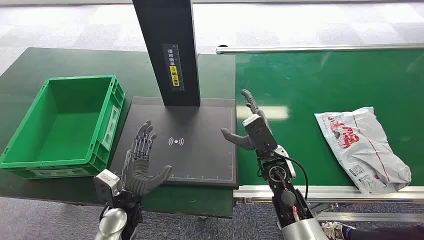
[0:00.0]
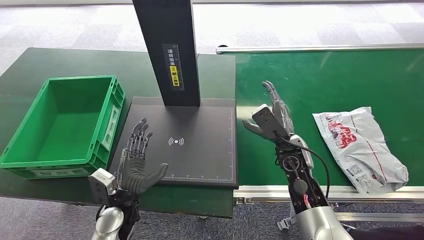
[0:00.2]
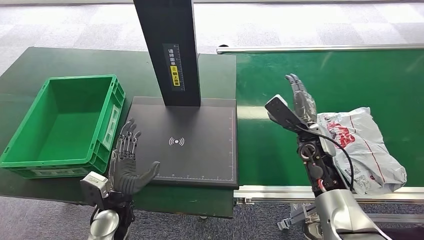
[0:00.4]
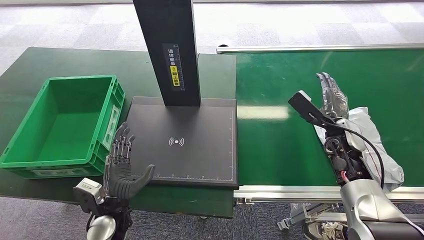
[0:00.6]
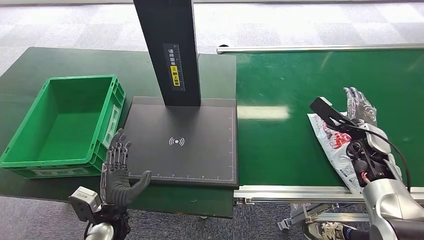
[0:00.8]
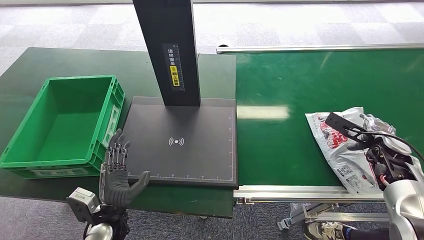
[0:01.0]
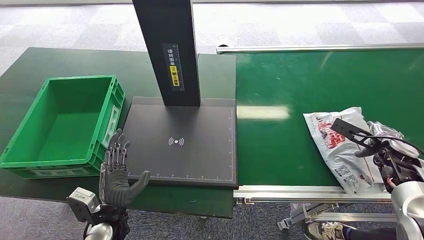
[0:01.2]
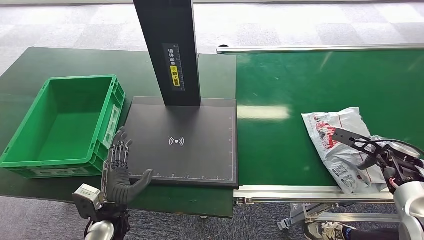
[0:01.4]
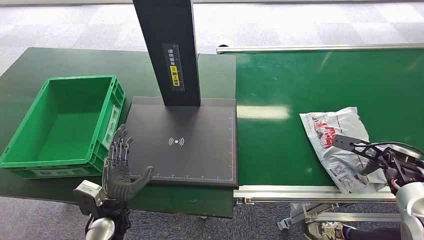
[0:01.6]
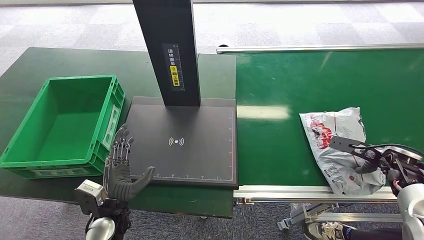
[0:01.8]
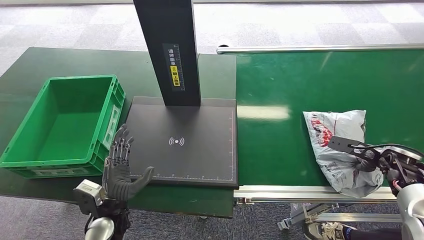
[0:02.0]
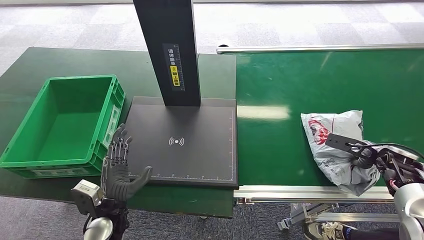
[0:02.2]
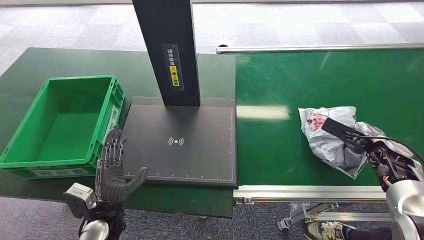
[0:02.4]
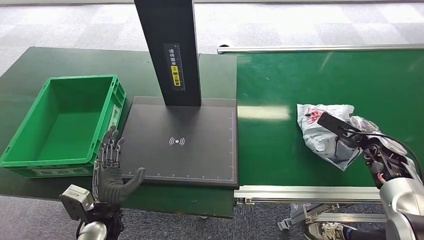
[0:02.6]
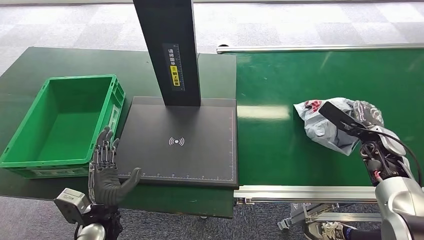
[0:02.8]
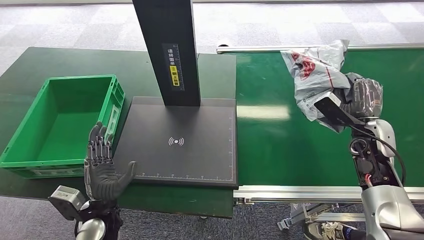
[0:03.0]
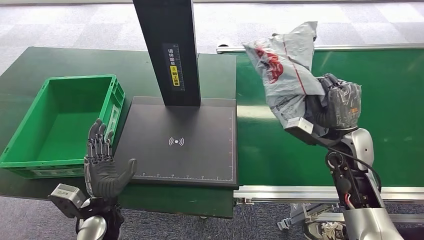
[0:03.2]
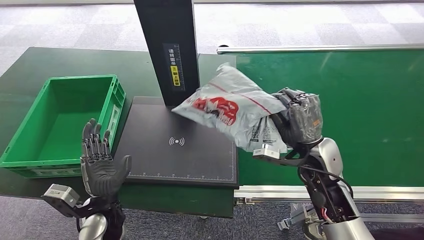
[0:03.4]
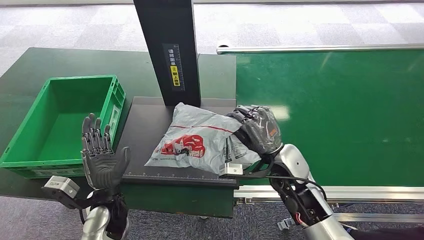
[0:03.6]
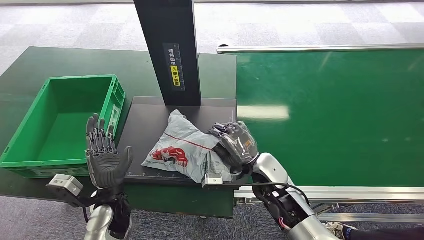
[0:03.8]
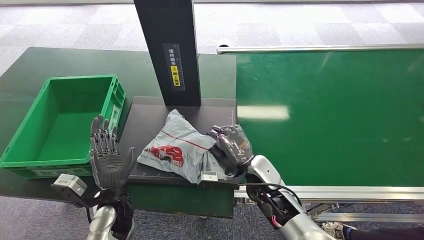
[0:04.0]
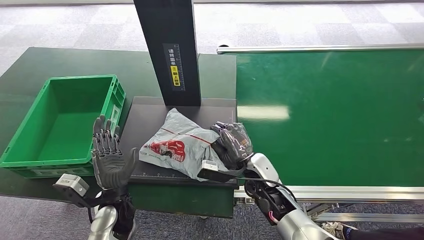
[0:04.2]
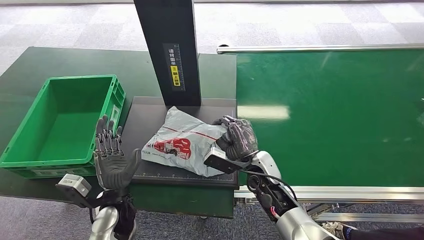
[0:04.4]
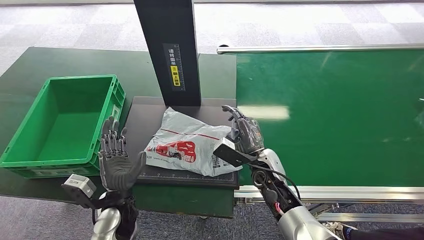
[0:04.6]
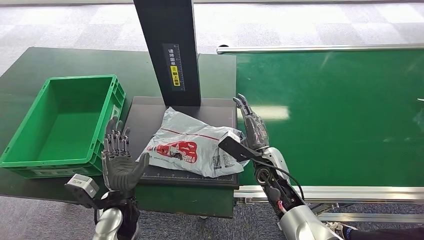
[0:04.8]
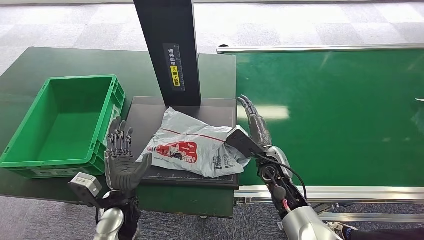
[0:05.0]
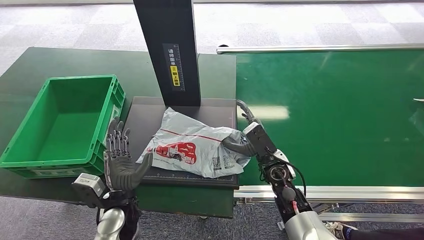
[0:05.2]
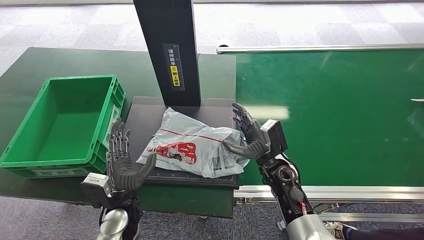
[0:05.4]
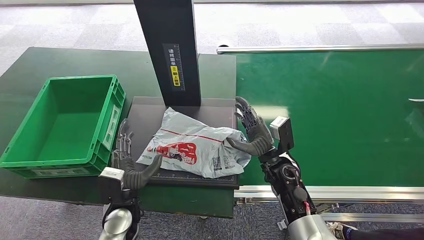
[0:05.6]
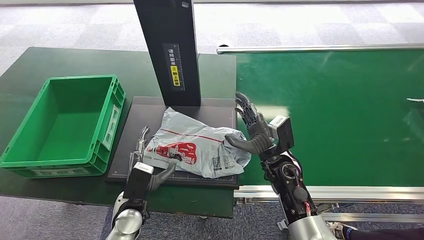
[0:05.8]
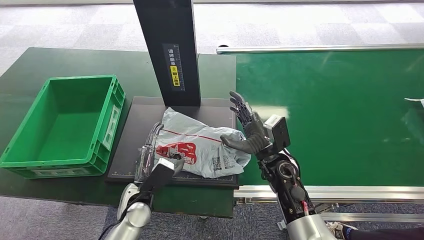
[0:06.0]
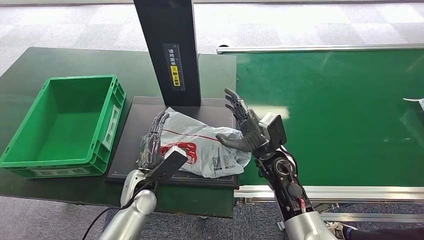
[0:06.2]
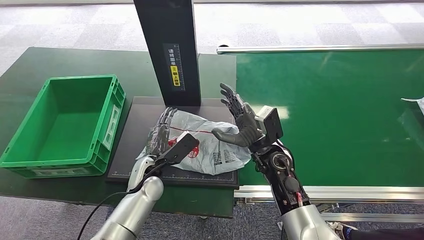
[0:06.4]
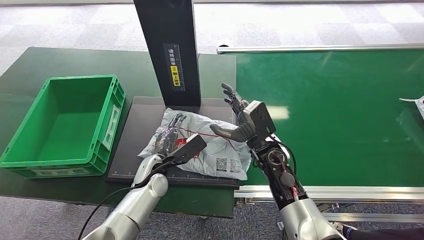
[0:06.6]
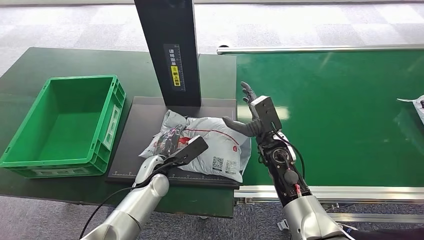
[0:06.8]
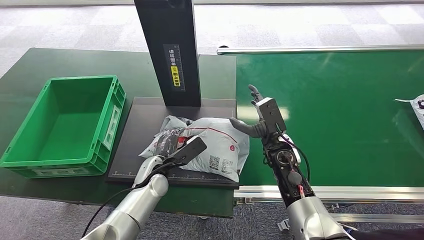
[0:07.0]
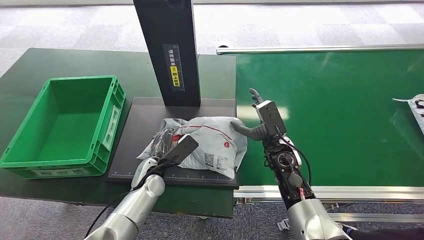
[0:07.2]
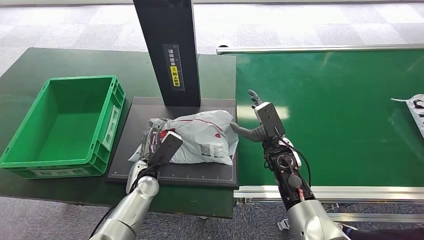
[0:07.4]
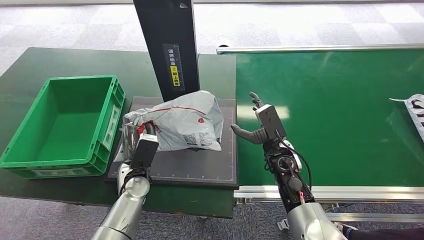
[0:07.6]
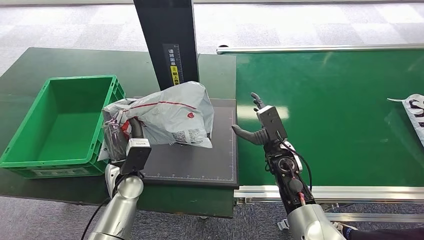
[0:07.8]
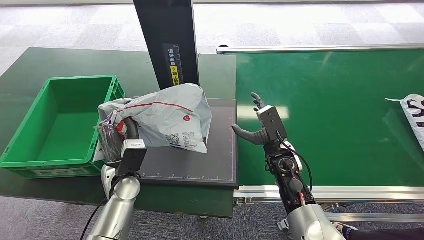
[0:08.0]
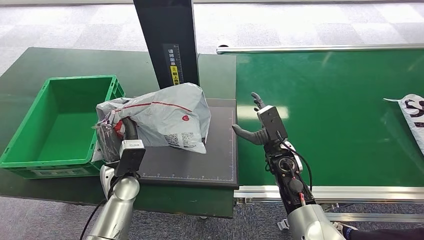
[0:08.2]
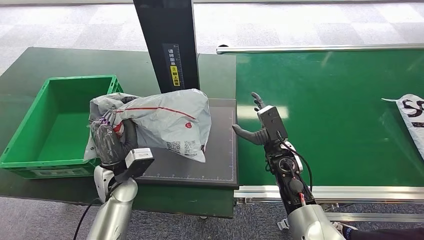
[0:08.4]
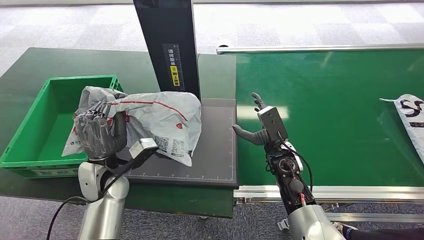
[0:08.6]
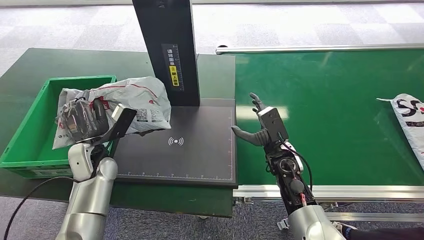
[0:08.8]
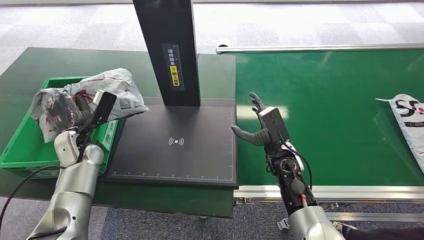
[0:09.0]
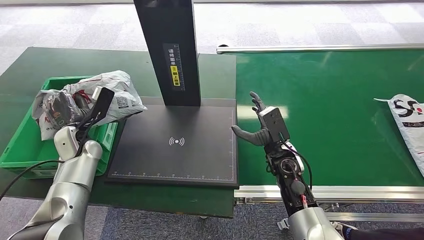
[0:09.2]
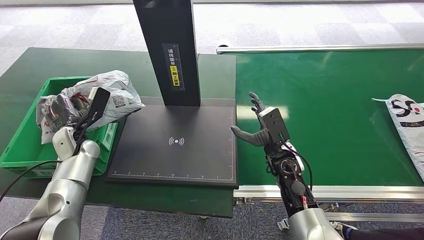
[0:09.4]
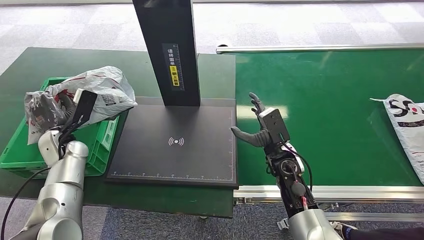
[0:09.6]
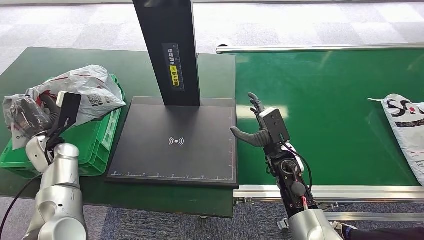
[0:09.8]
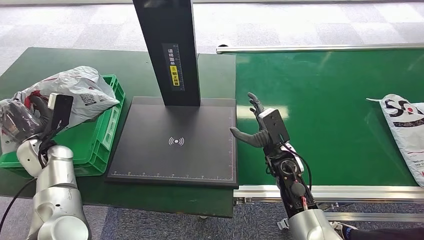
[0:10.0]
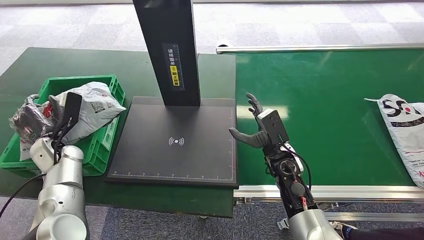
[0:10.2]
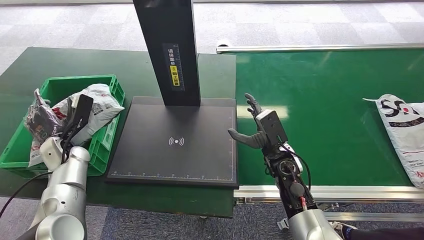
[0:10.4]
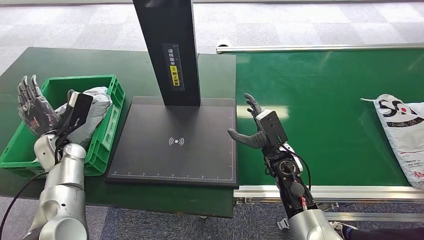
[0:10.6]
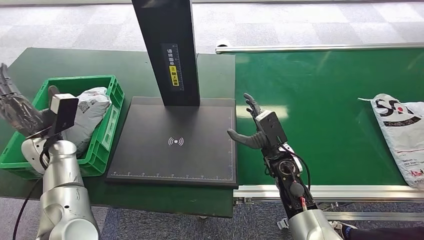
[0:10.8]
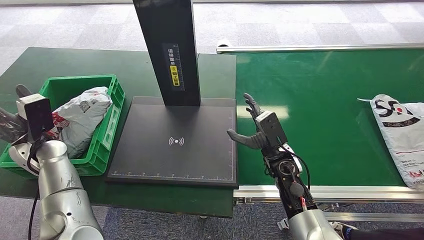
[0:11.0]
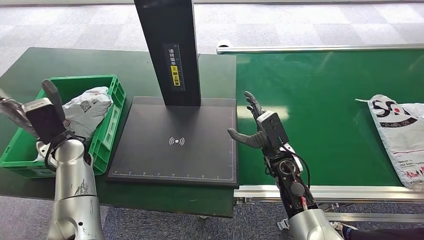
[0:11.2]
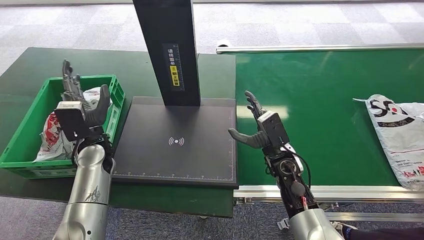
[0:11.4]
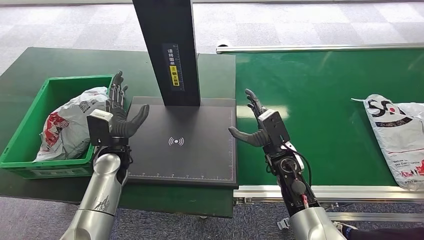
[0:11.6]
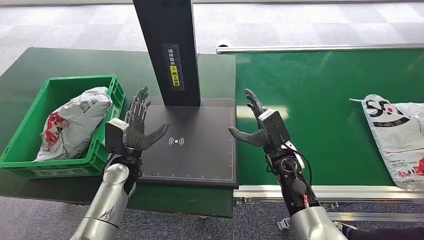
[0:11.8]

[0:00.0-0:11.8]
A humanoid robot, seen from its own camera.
Step, 0:00.0 to 0:03.4: Pick up the package from the conveyor belt.
Step, 0:04.6 to 0:06.4: Place the package onto the inbound machine.
Step, 0:06.8 to 0:07.8: Pick up the package from the inbound machine.
Step, 0:08.4 to 0:11.6: Place the package into the parcel locker.
0:01.4 to 0:03.0: The right hand is displaced to the left by approximately 10 cm.
0:06.0 to 0:07.4: The left hand is displaced forward by roughly 5 cm.
0:10.4 to 0:11.8: The left hand travels to the right by approximately 15 cm.
